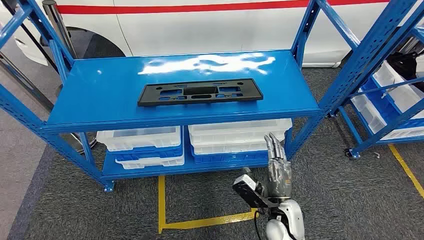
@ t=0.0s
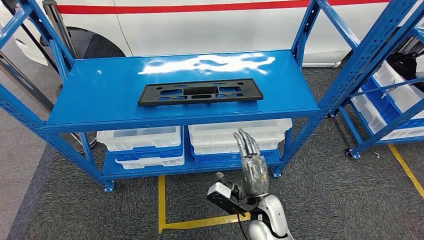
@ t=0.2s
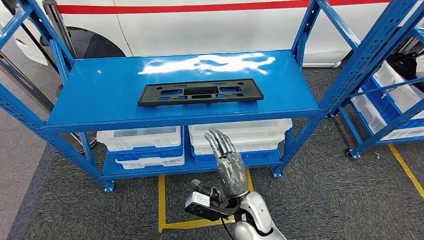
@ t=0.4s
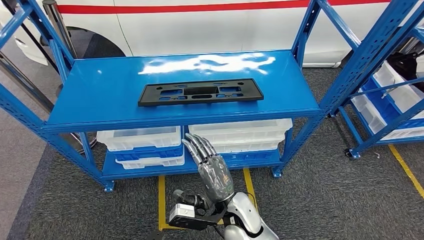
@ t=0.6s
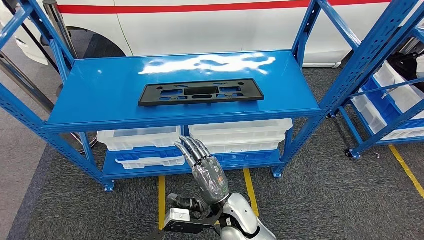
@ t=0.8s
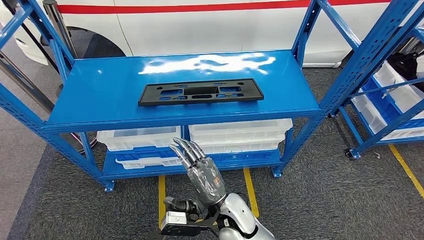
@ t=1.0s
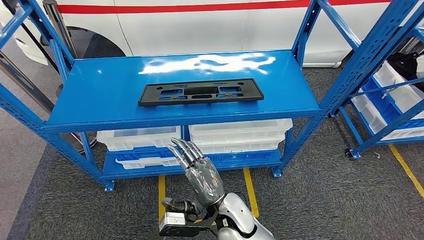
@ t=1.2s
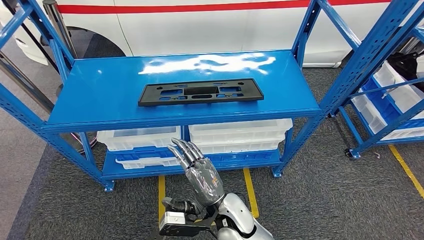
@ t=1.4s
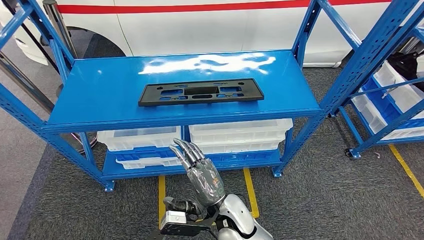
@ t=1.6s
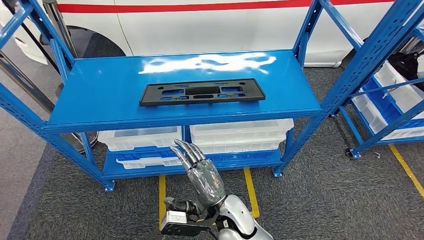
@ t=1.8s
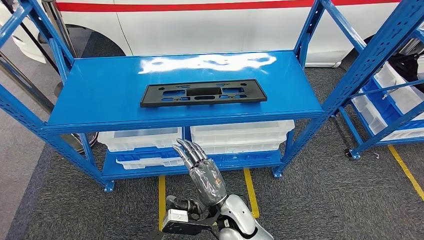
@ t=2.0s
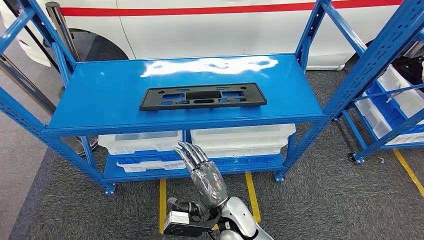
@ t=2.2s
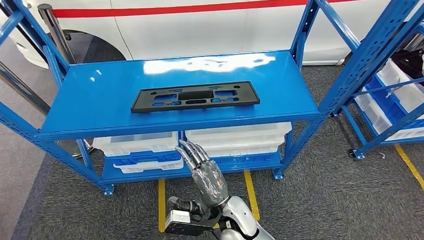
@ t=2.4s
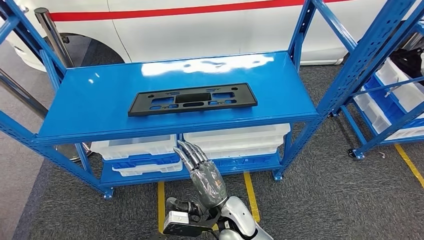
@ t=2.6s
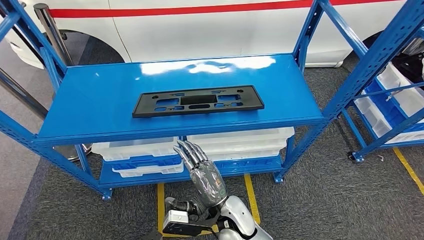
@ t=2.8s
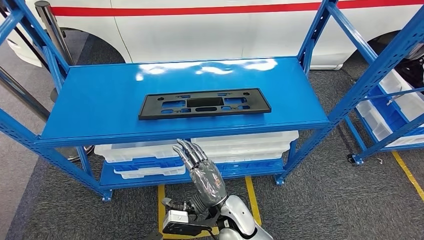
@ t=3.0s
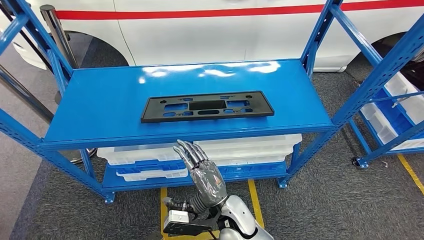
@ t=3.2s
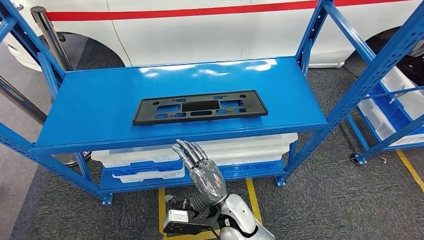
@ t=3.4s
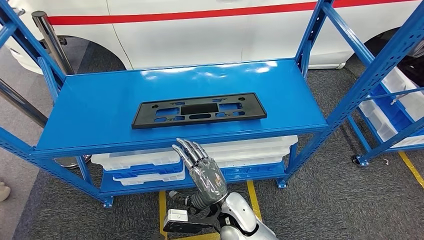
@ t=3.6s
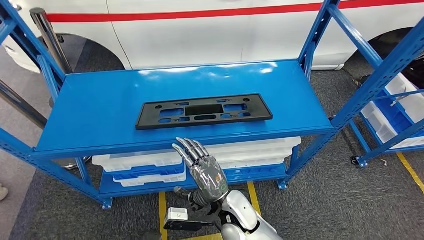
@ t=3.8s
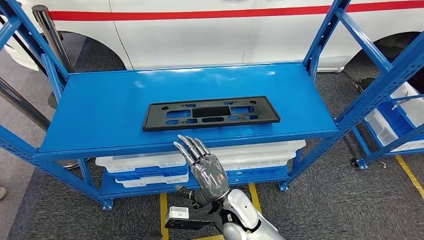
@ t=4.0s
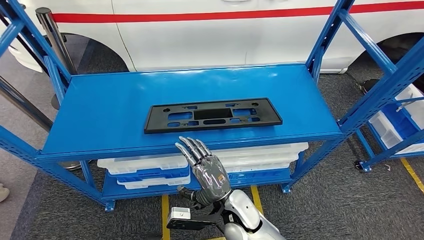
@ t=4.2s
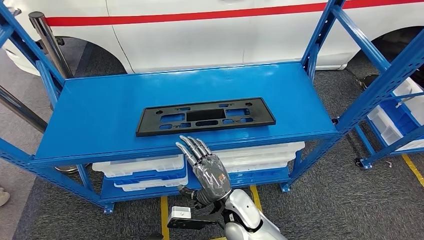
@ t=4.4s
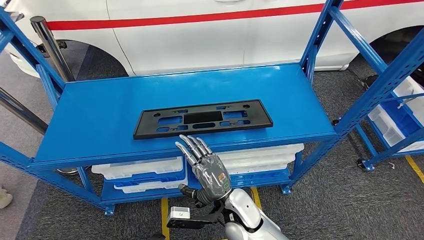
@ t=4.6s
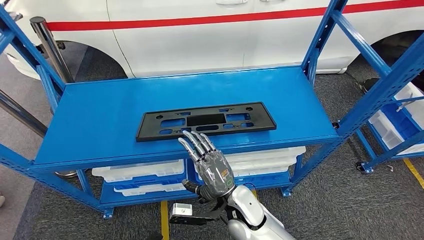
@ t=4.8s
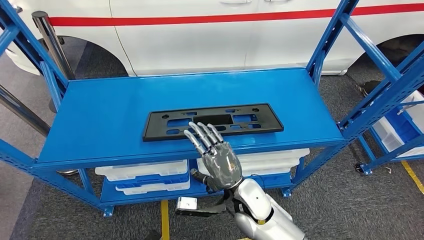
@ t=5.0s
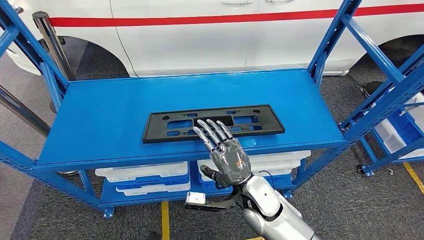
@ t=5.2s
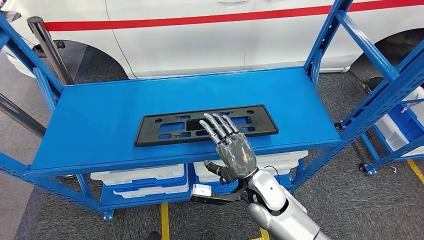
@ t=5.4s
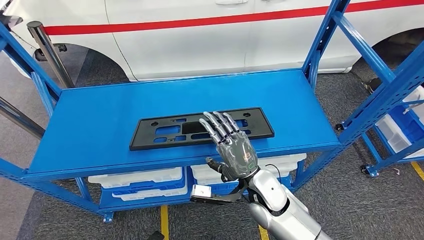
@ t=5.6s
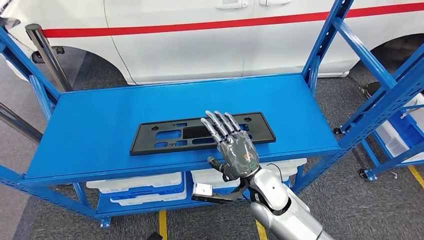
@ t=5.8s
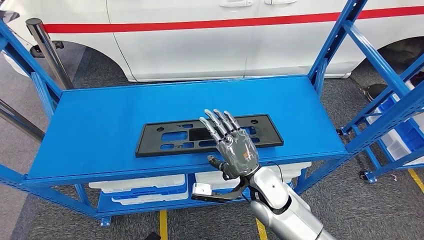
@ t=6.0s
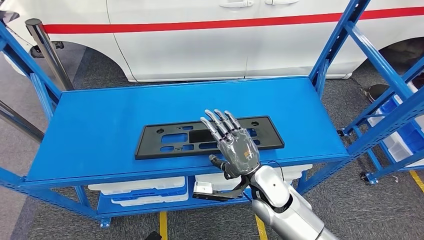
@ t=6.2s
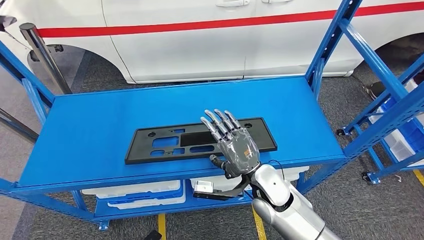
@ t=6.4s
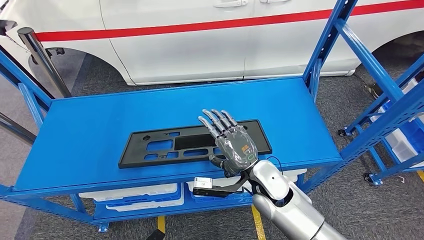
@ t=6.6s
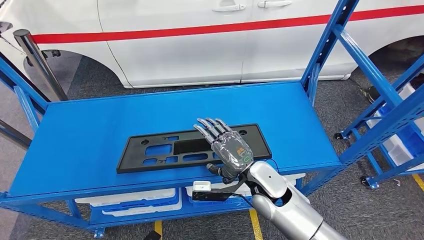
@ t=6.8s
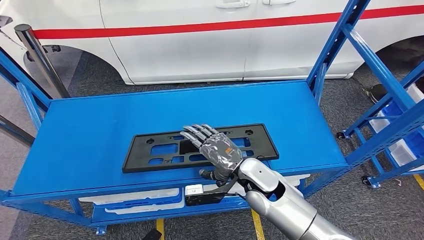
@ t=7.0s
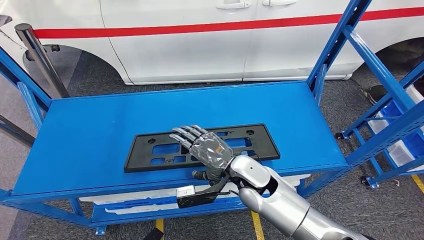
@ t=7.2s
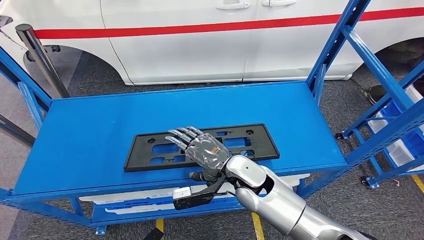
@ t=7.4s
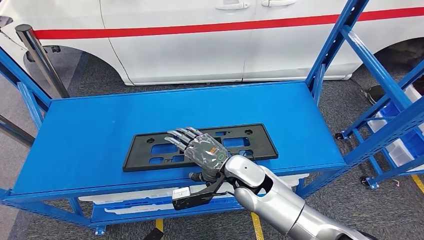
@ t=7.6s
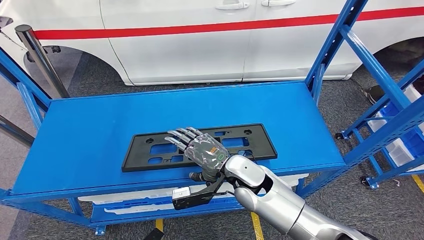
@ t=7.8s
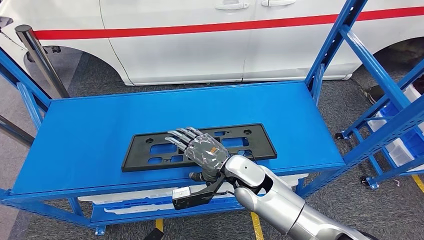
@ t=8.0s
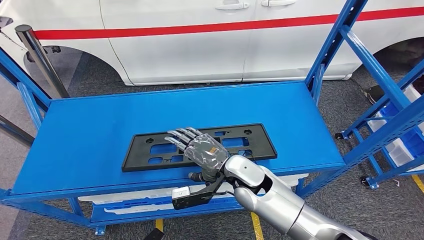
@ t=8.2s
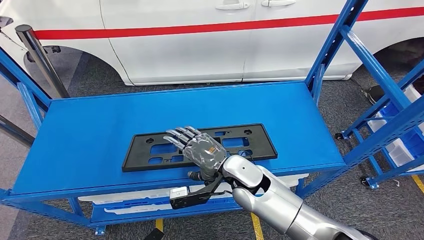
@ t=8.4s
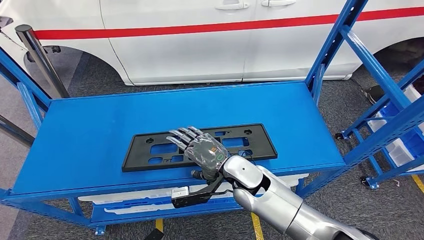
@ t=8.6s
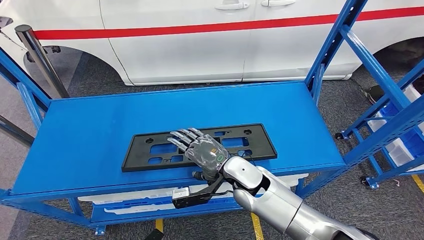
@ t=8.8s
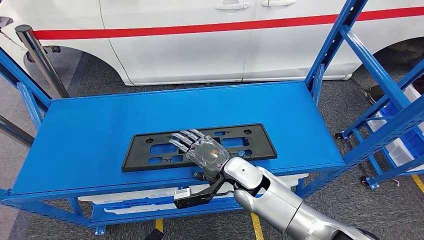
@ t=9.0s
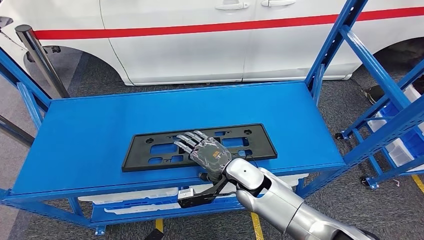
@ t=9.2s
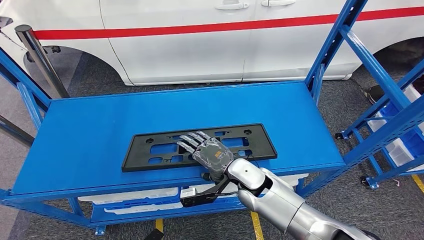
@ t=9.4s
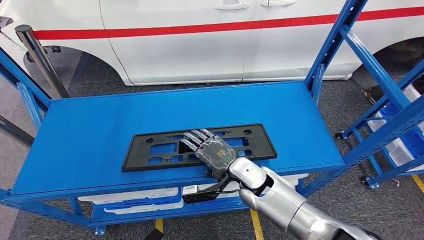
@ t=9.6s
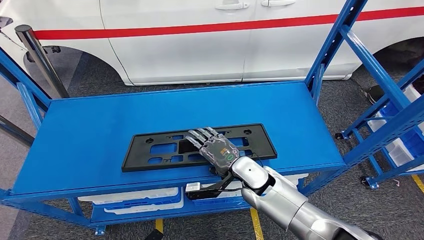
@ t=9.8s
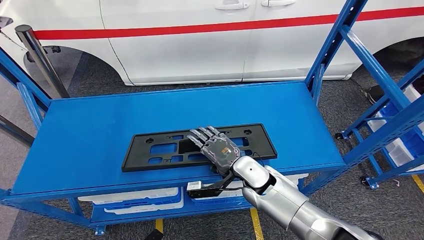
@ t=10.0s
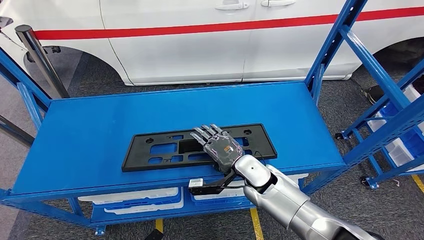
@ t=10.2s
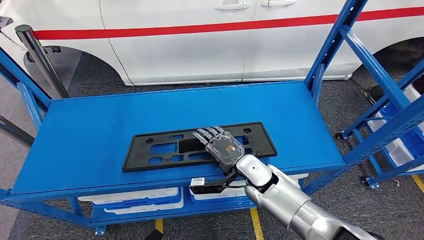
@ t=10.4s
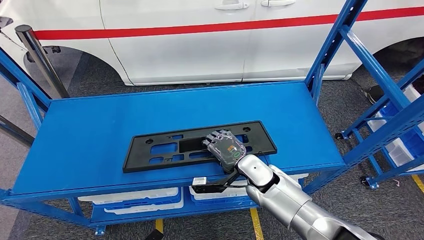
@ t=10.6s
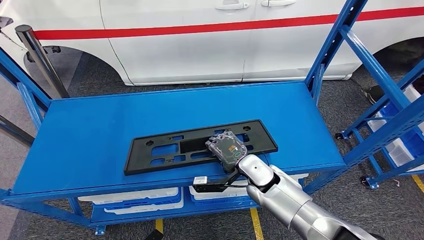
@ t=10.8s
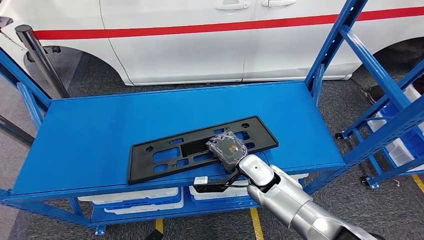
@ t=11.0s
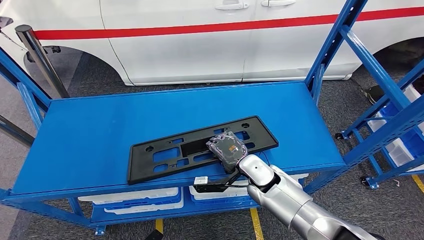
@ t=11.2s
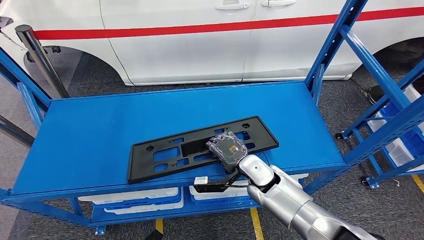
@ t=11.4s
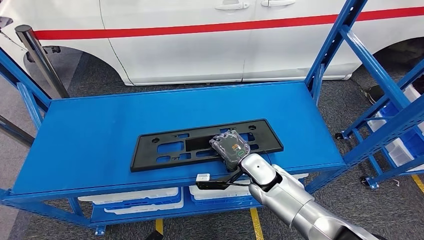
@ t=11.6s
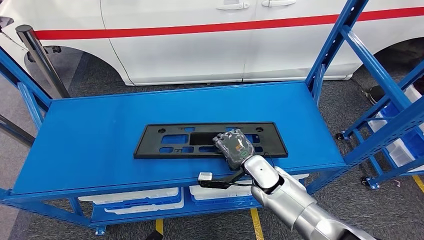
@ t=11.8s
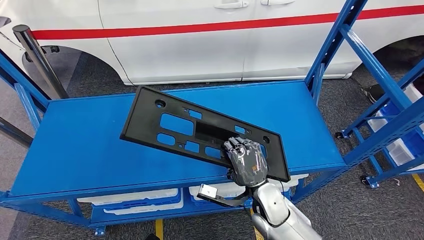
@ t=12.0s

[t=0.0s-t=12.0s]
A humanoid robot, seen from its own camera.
t=7.6s to t=9.0s: There are only small adjustments of the hands.
t=9.0s to t=10.4s: The hands make only small movements.
t=10.4s to t=12.0s: The right hand moves backward, approximately 5 cm.

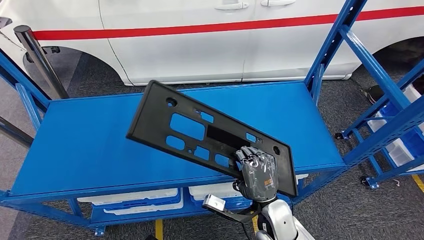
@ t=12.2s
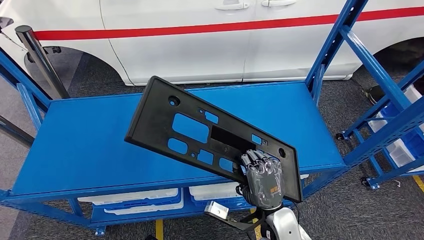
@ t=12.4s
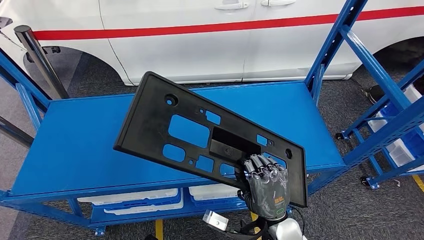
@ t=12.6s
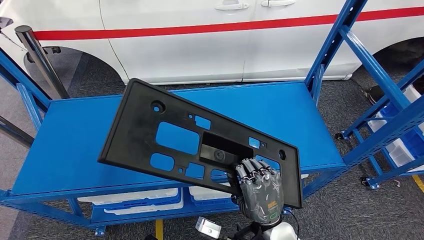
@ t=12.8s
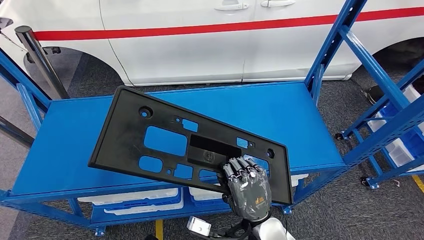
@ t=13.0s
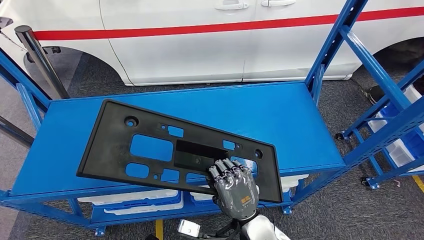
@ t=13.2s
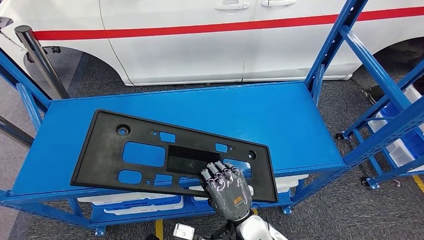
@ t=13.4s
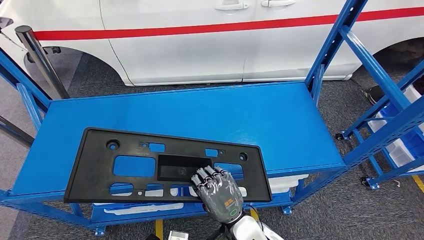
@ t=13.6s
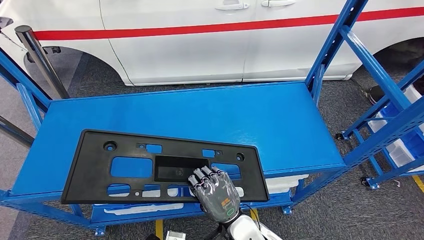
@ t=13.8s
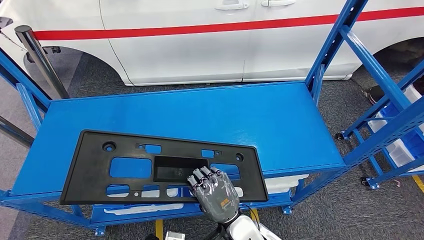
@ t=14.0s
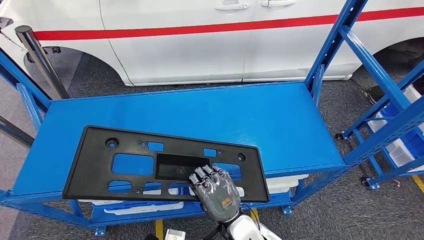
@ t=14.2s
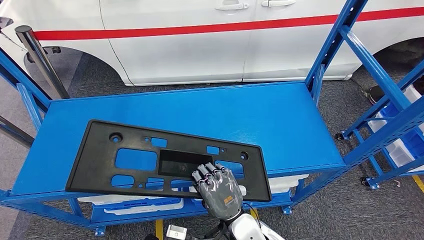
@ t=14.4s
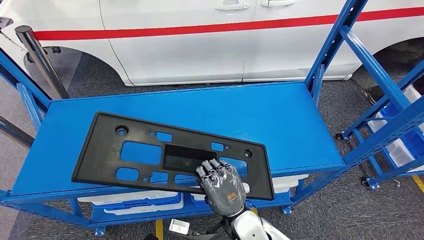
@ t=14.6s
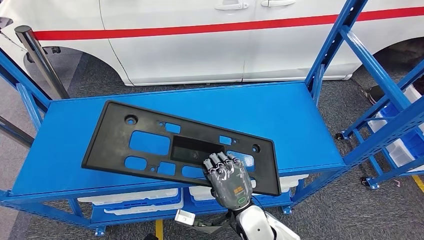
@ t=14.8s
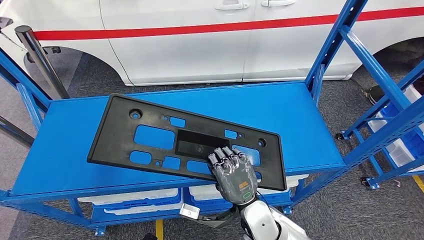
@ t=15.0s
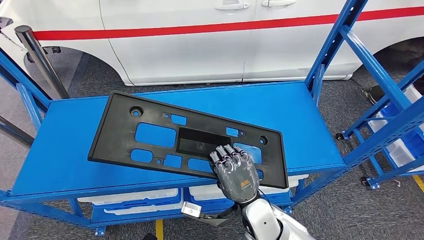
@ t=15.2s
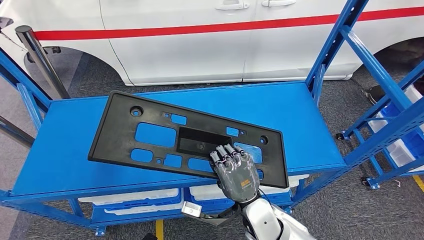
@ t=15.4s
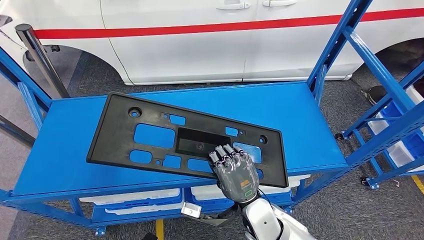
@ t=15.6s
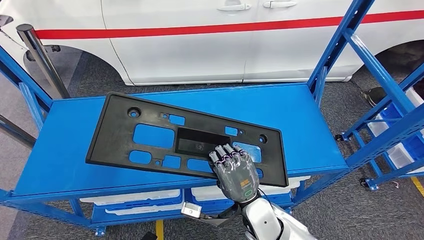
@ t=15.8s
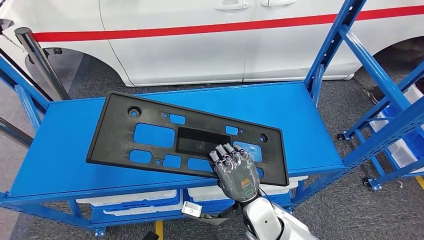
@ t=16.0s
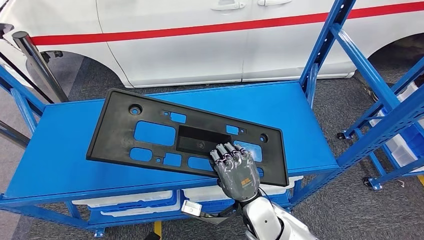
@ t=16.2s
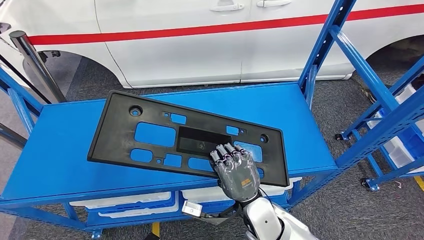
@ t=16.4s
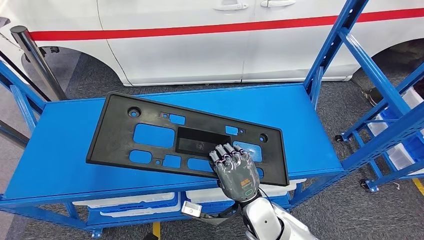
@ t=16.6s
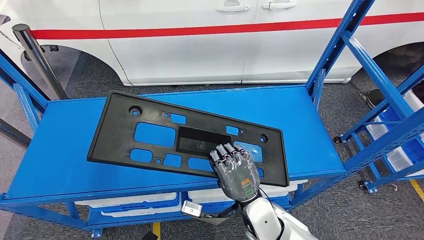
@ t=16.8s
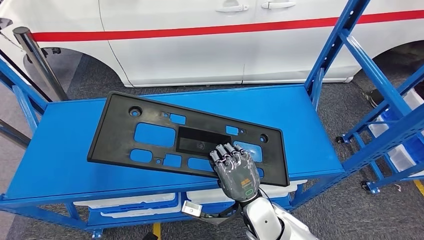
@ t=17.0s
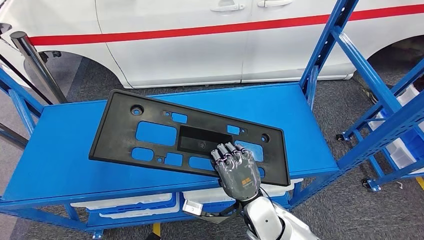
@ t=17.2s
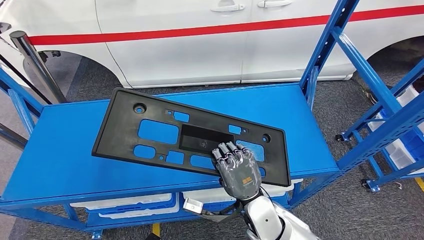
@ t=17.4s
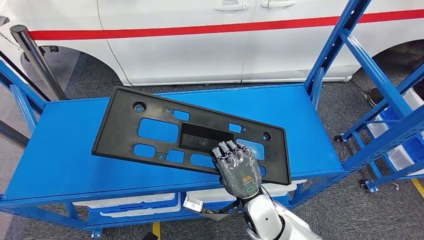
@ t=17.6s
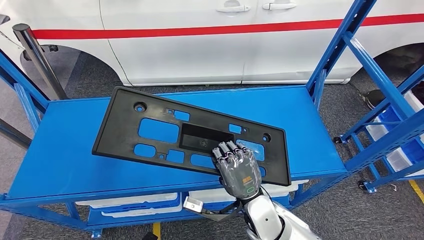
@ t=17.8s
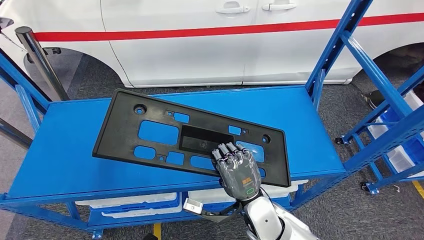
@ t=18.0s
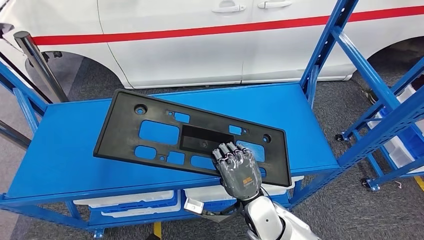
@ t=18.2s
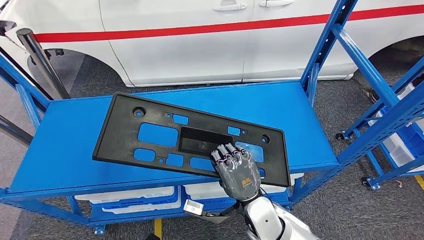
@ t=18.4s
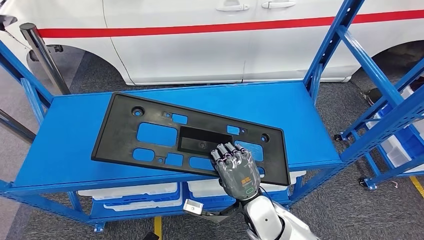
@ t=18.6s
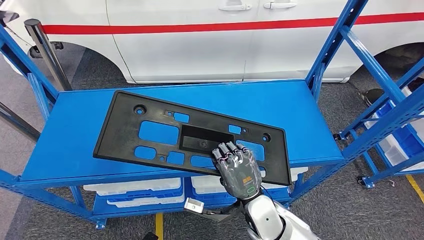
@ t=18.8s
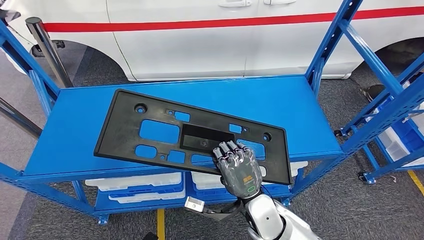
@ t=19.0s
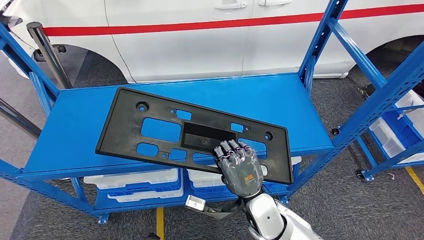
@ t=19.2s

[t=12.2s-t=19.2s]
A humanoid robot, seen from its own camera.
t=12.2s to t=13.6s: The right hand shifts approximately 5 cm to the left.
t=13.6s to t=15.0s: The hands move only a little.
